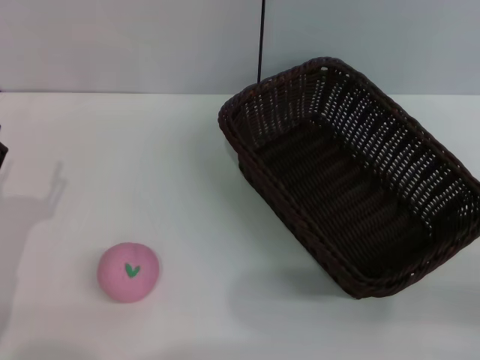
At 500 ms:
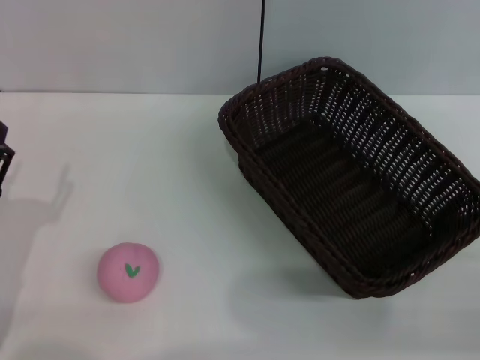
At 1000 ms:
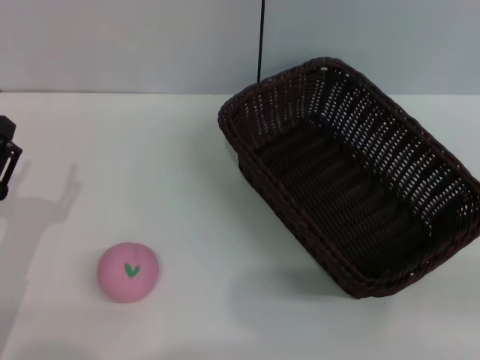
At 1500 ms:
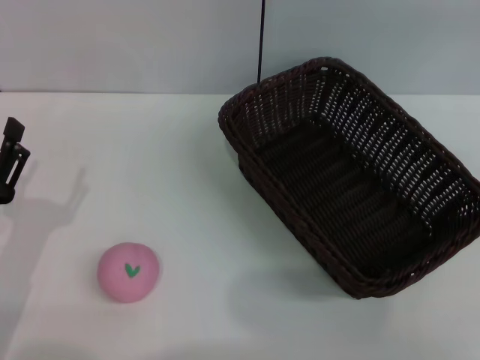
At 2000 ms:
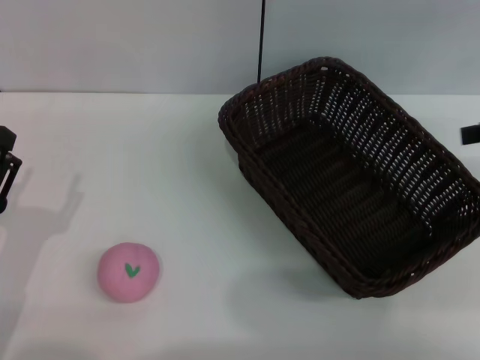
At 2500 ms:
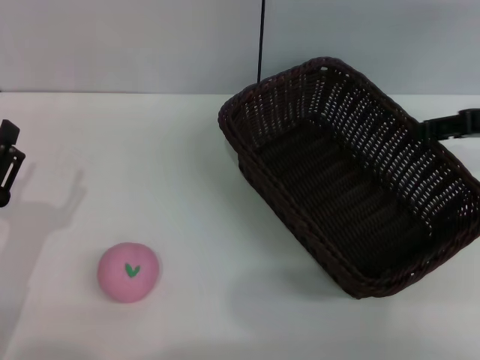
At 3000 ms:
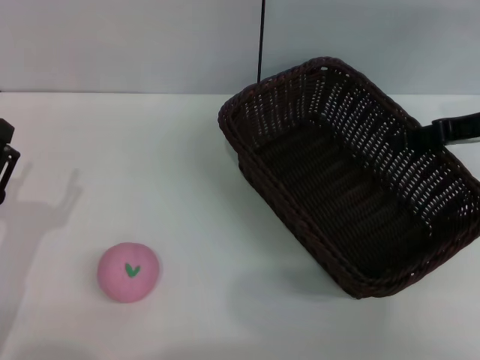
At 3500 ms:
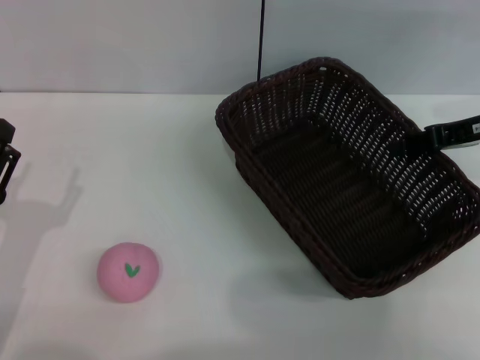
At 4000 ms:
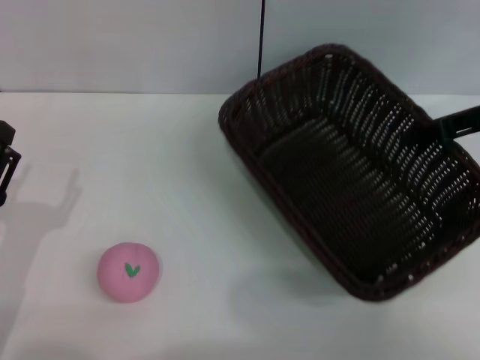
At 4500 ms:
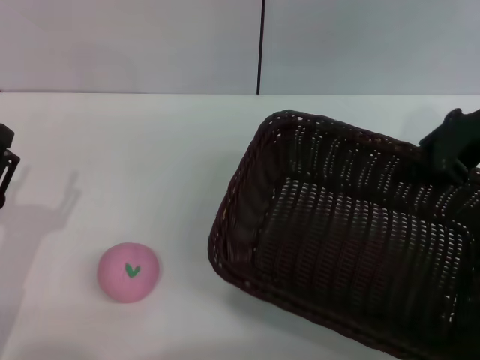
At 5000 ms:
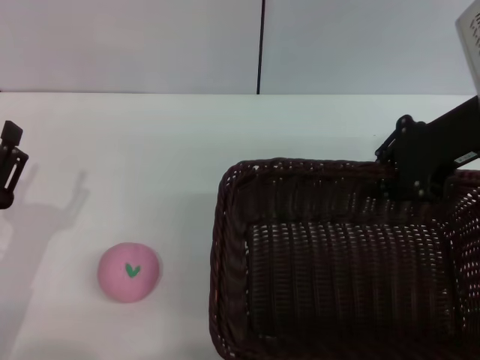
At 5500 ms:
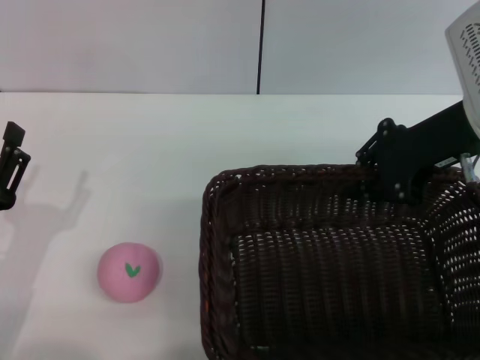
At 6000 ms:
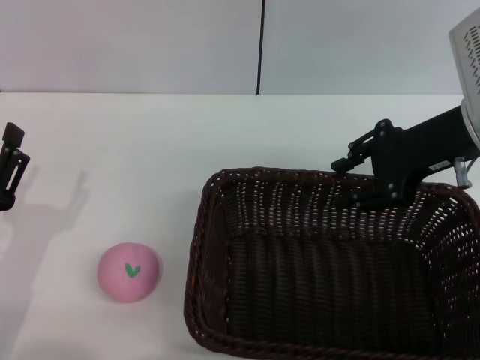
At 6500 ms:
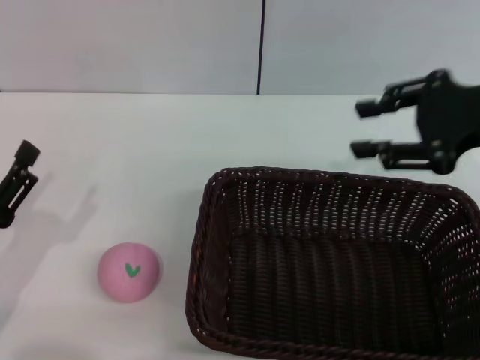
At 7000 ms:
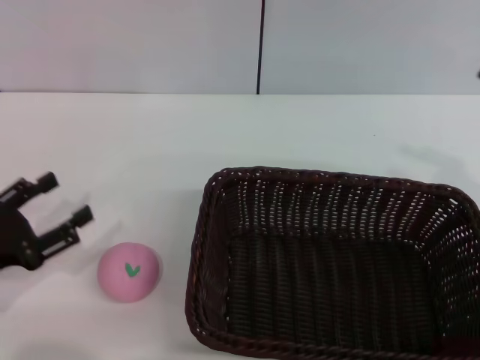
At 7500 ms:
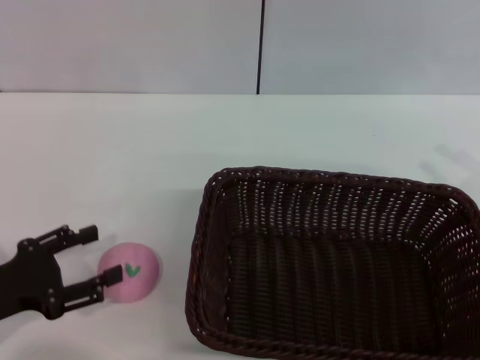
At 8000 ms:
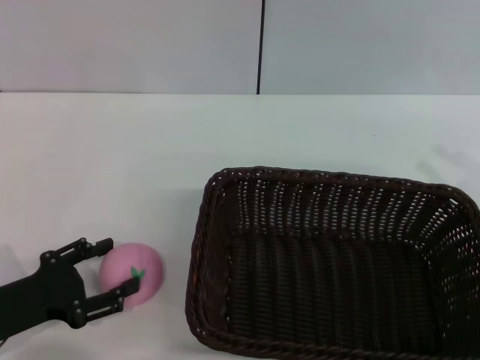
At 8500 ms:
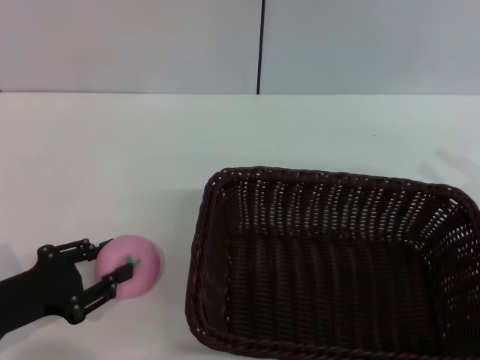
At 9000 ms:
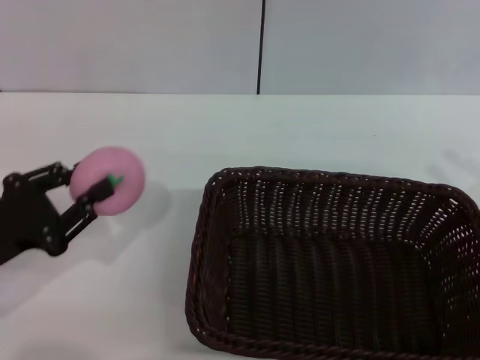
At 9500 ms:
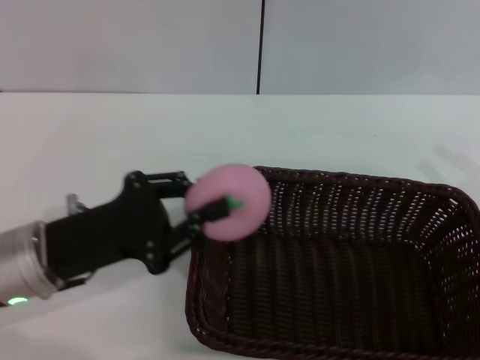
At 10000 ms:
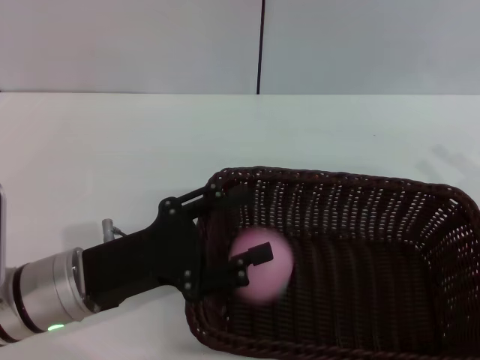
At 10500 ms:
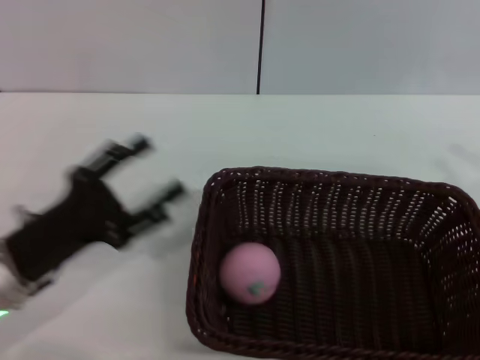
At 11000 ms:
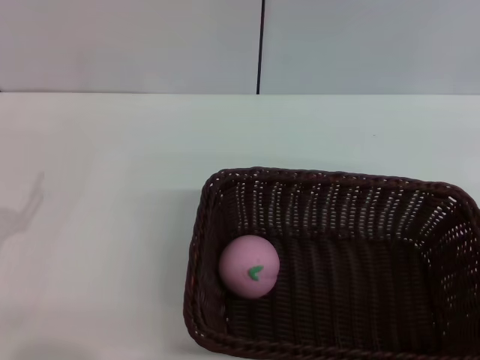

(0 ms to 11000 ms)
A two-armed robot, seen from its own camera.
Step, 0 ms - 4000 ms: Pick up the dark basket with the right gripper.
Step, 4500 ms - 6500 ms: Place the dark basket in the center of view with the right gripper.
Step, 7000 ms - 9000 ms: Pick up the peach with the left gripper.
Step, 9500 ms - 10000 ms: Place the peach into the basket with the left gripper.
0 ms - 2000 ms: The right gripper moves upward and forward, roughly 20 cm.
2000 ms - 3500 ms: The right gripper goes about 10 cm to the left and downward.
3500 ms - 5500 ms: The right gripper shifts some 10 cm to the left, and closes its fingers.
5500 ms - 7500 ms: The left gripper ends up about 5 cm from where it was. Meanwhile the right gripper moves backward, to the right and downward, roughly 20 cm, and opens.
7500 ms - 9000 ms: The left gripper closes its fingers.
9000 ms - 11000 ms: The right gripper moves backward, some 5 cm, while the left gripper travels to the right and back again, roughly 10 cm each way, and opens its fingers.

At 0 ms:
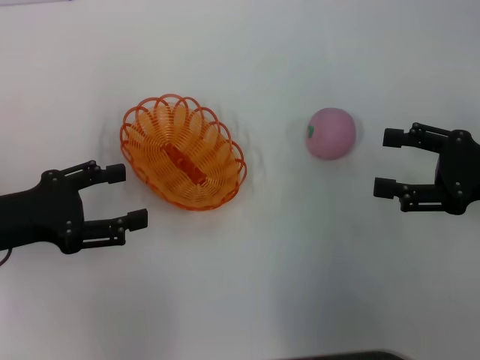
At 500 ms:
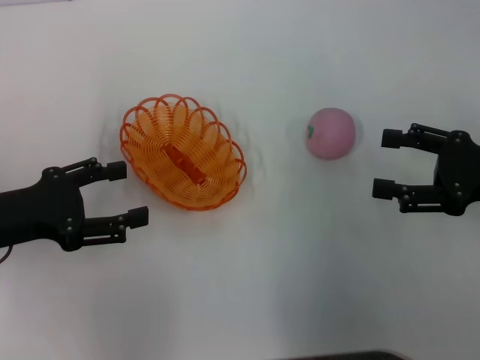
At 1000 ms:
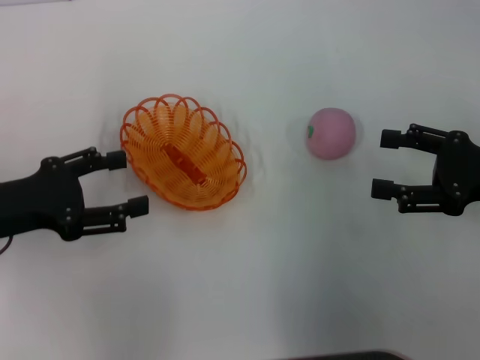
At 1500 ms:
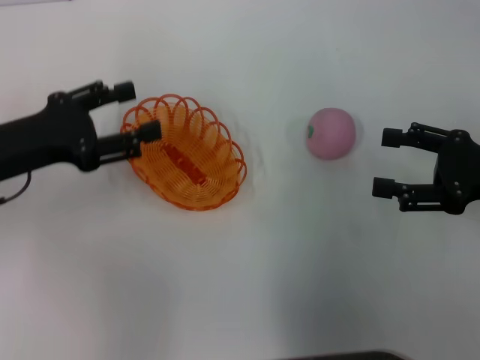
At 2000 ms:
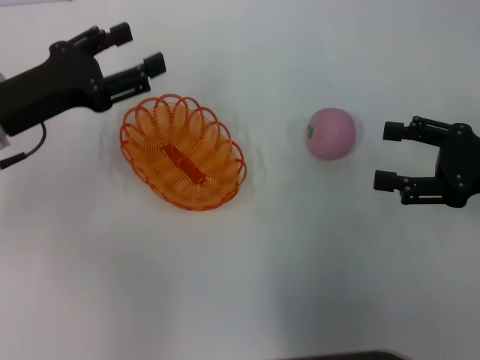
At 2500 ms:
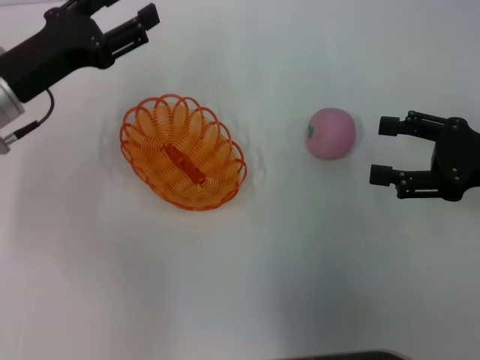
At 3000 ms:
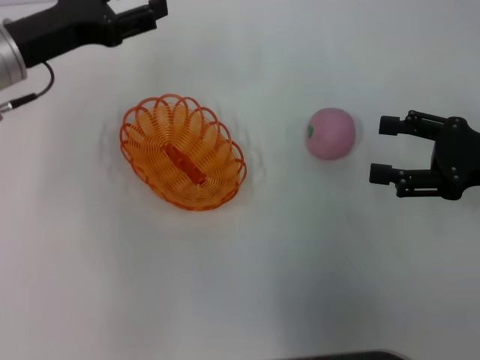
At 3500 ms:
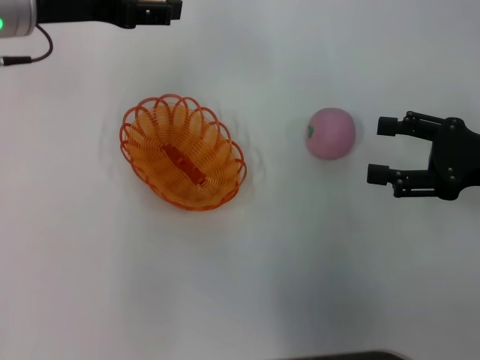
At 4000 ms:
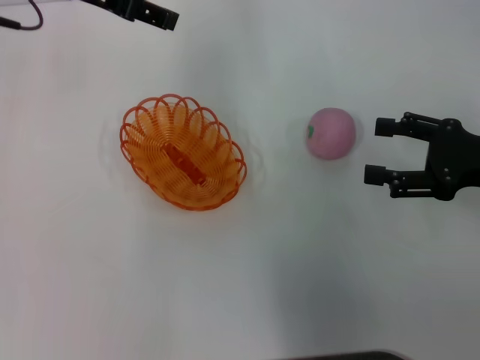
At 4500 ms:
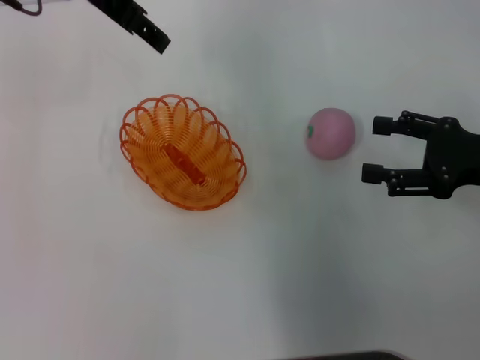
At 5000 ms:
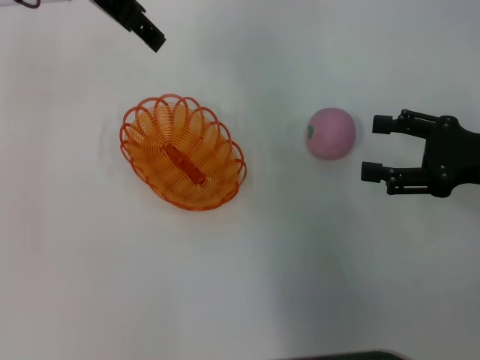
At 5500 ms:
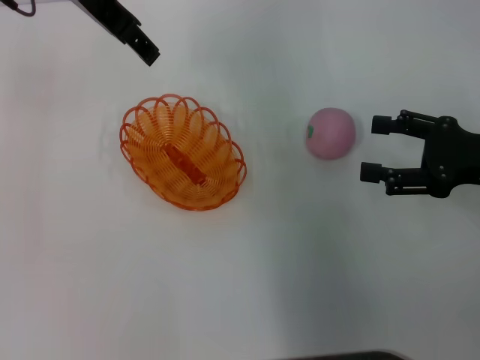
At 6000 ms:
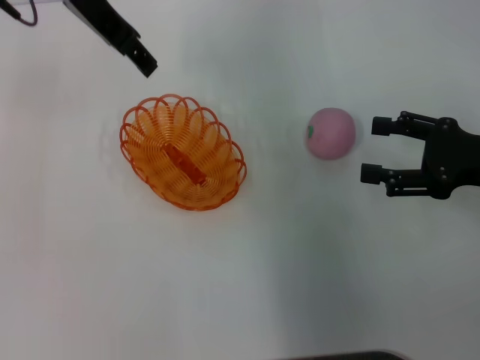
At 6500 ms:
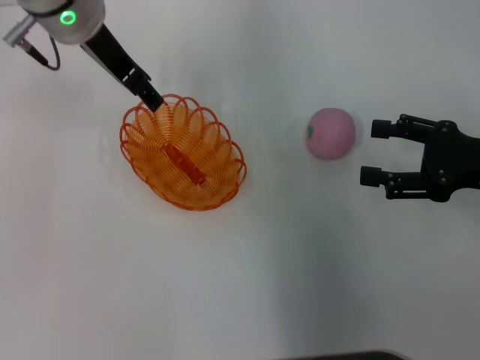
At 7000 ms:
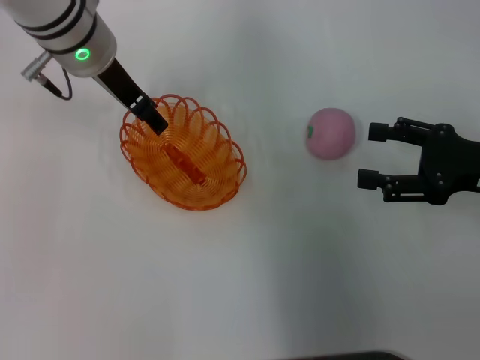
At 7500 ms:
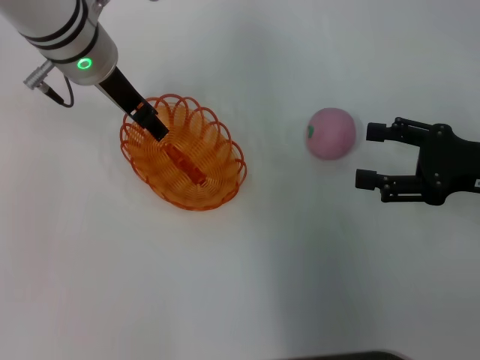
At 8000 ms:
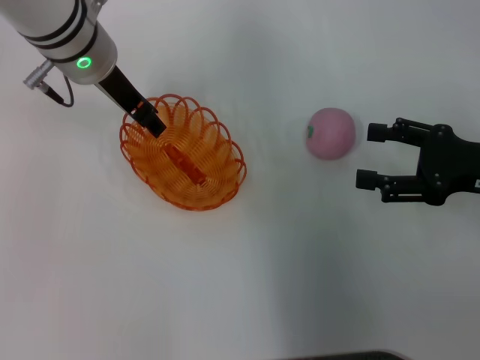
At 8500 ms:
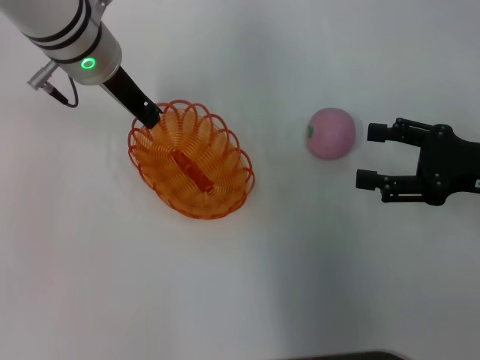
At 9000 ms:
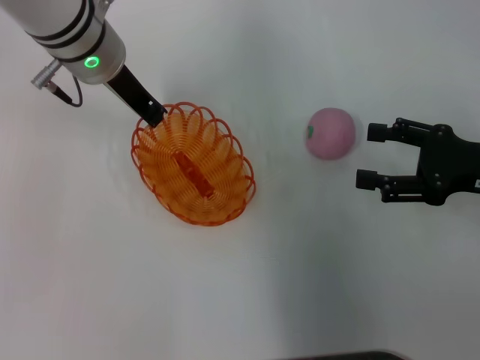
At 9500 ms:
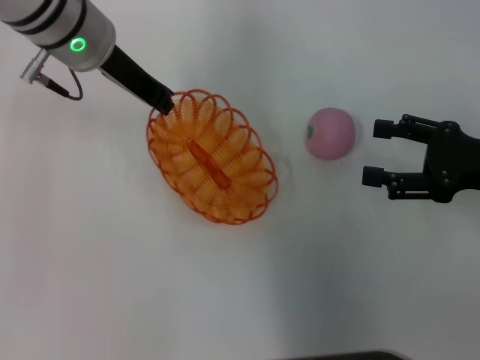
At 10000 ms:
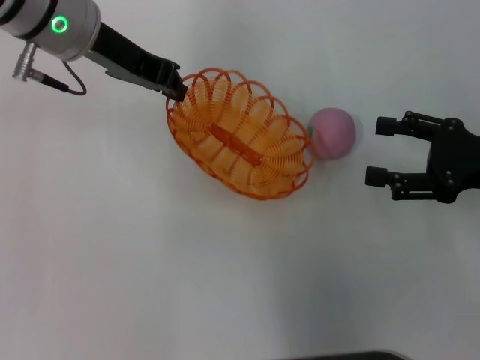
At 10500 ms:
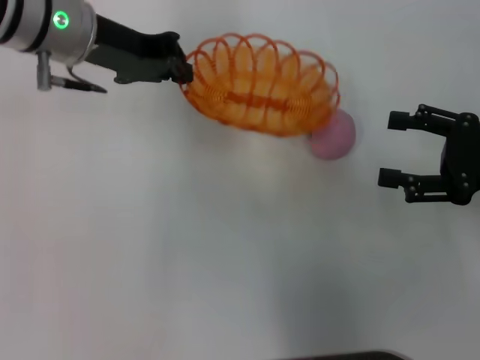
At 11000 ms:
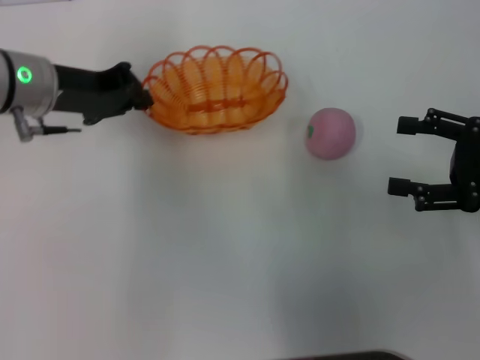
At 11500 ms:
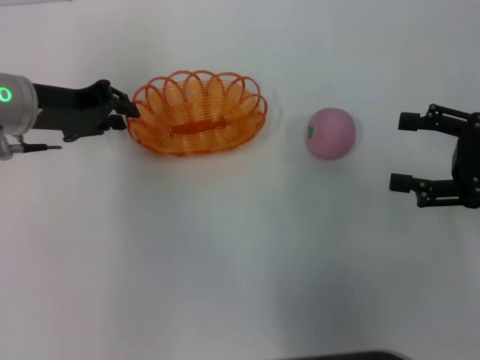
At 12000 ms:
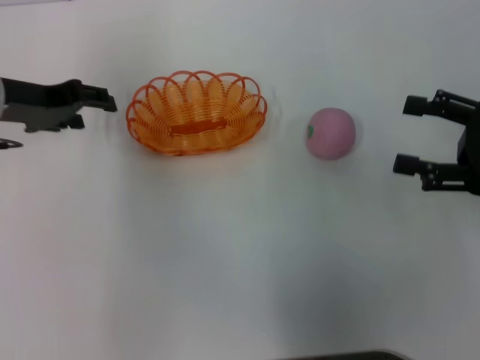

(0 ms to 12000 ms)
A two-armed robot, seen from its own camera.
Step, 0 ms - 9500 ms: Pick up the basket with the left gripper.
0 ms - 2000 ms: The left gripper is displaced forward by approximately 5 cm.
2000 ms - 4000 ms: The left gripper goes about 15 cm upward, forward and to the right.
6000 ms - 8000 ms: The left gripper heads downward, covering about 10 cm.
8000 ms - 10000 ms: The left gripper moves some 5 cm, and closes.
10000 ms - 12000 ms: The left gripper heads to the left and downward, covering some 10 cm, and opens up.

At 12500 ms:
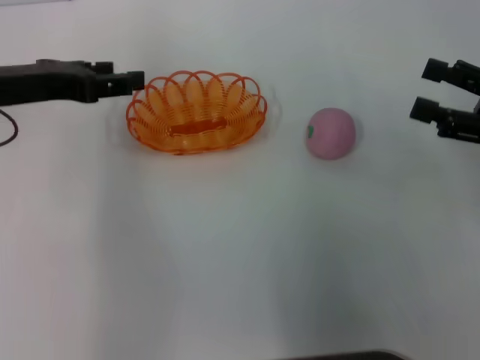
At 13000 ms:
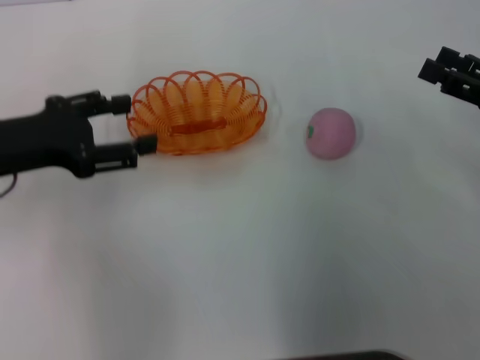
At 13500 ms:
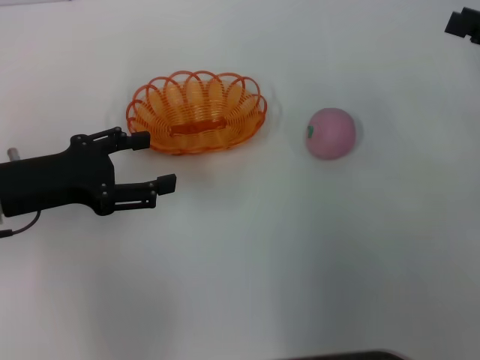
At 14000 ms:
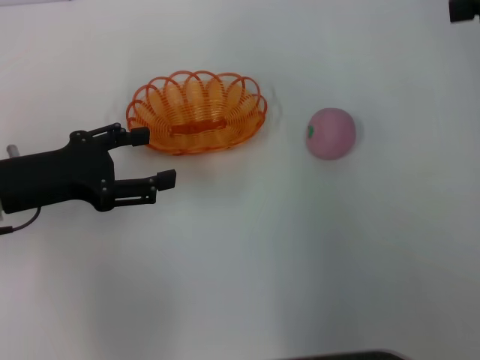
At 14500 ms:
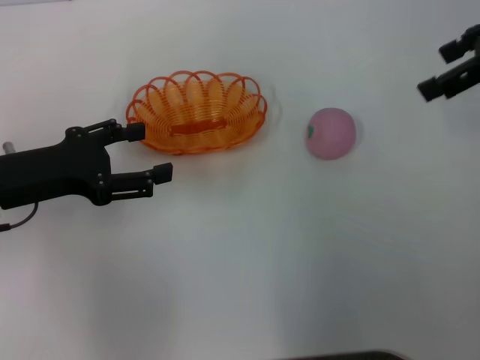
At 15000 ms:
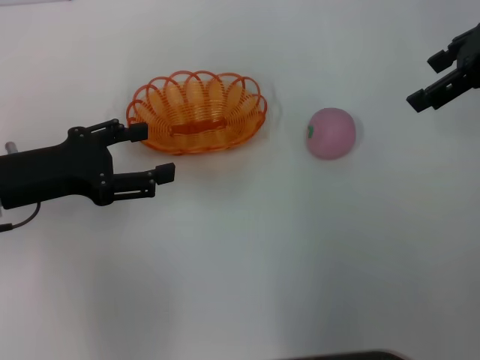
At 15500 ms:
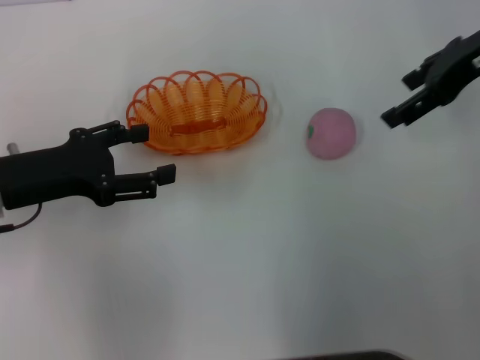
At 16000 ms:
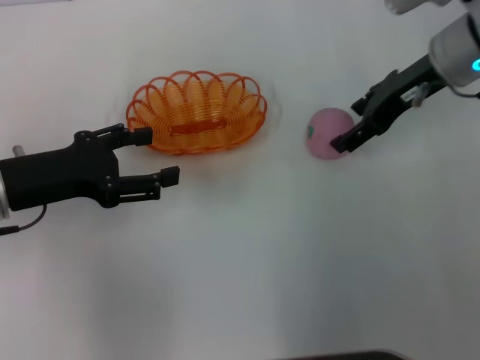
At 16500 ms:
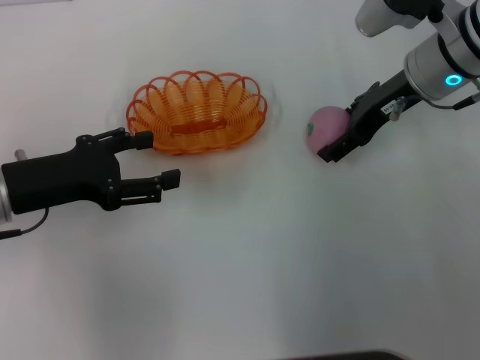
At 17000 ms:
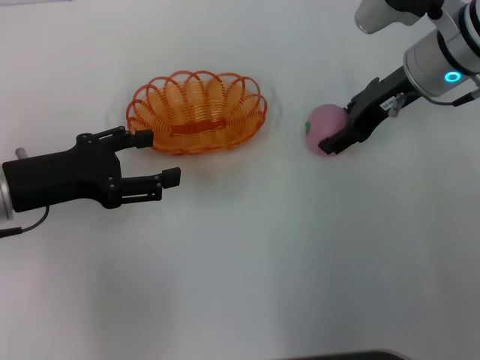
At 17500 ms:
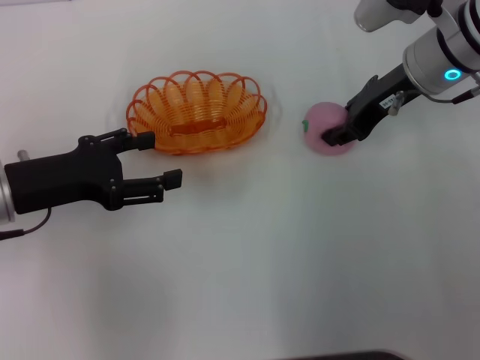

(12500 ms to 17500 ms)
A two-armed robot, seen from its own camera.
12500 ms - 15000 ms: The left gripper goes approximately 10 cm downward and backward. The right gripper is displaced upward, forward and to the left by about 20 cm.
15000 ms - 17500 ms: The right gripper travels downward and to the left by roughly 15 cm, and closes.
